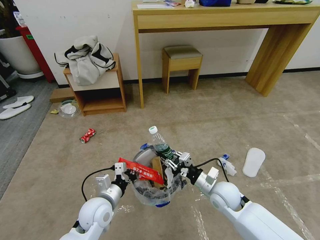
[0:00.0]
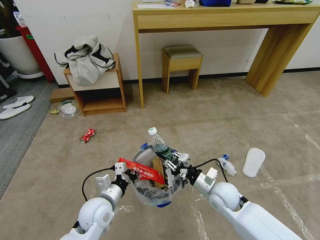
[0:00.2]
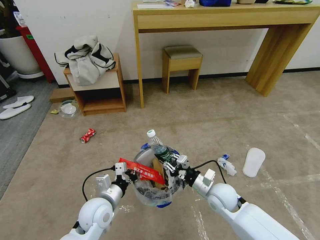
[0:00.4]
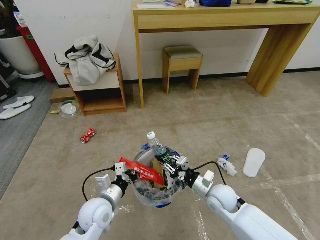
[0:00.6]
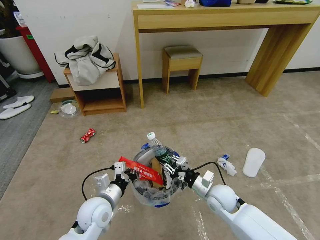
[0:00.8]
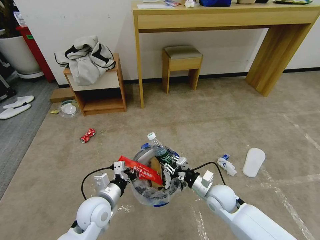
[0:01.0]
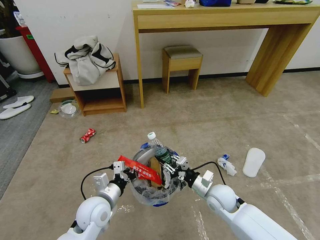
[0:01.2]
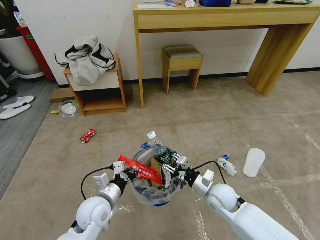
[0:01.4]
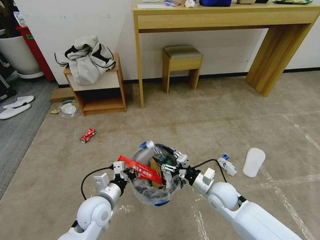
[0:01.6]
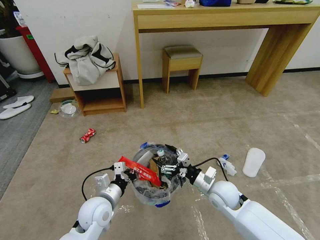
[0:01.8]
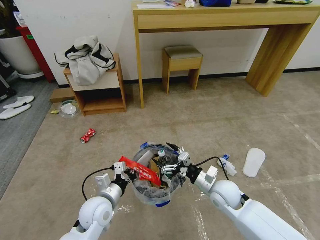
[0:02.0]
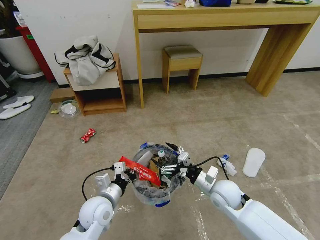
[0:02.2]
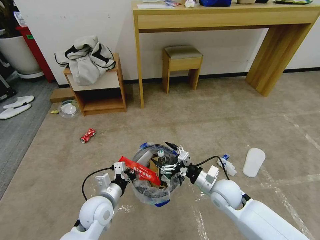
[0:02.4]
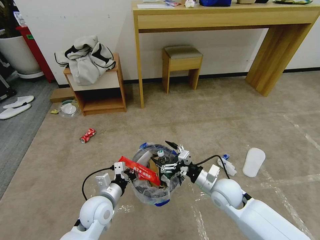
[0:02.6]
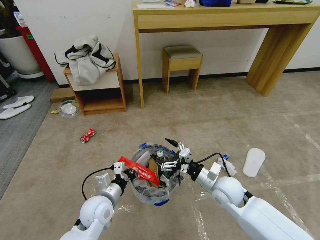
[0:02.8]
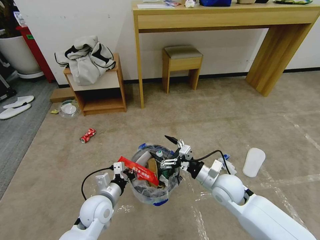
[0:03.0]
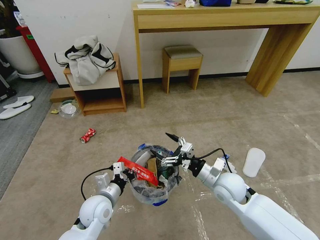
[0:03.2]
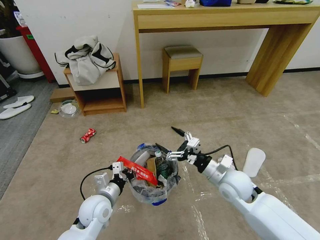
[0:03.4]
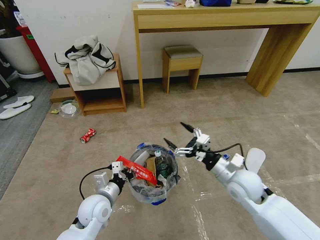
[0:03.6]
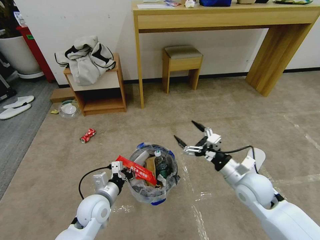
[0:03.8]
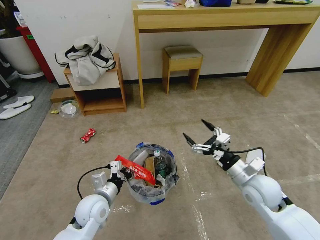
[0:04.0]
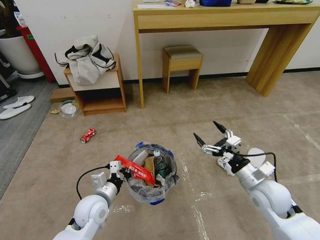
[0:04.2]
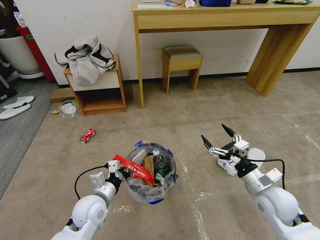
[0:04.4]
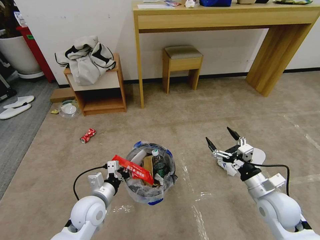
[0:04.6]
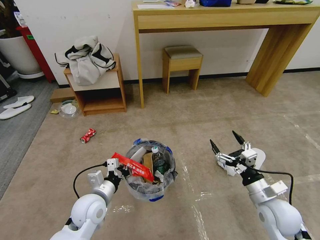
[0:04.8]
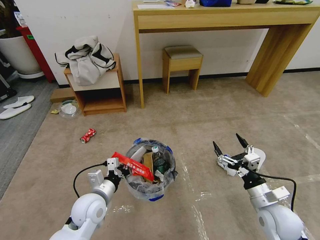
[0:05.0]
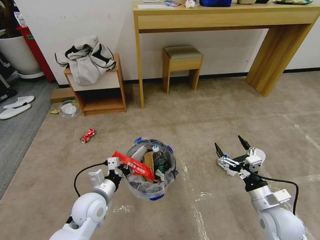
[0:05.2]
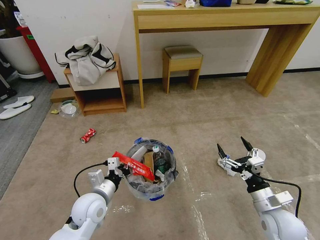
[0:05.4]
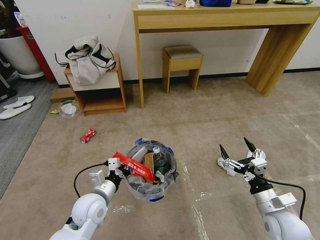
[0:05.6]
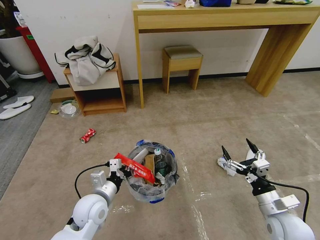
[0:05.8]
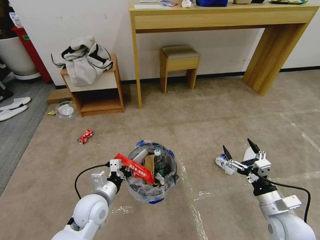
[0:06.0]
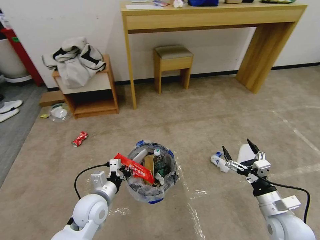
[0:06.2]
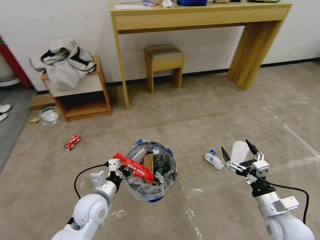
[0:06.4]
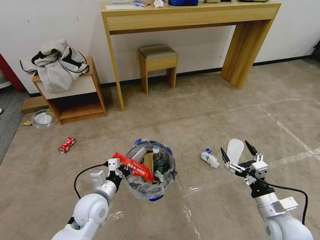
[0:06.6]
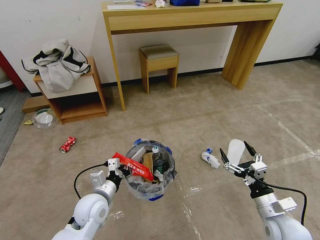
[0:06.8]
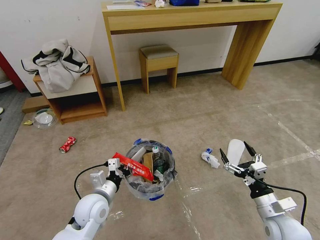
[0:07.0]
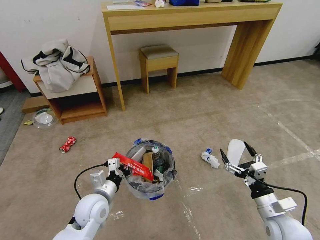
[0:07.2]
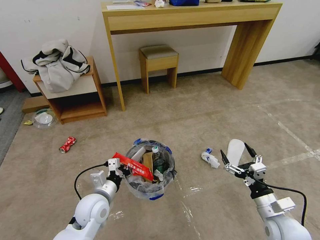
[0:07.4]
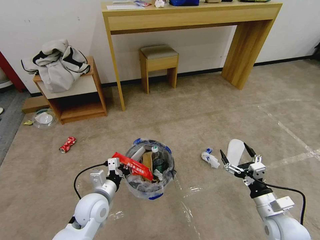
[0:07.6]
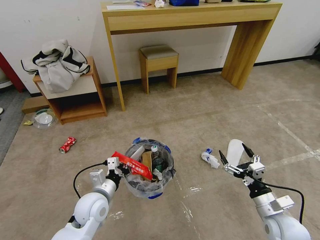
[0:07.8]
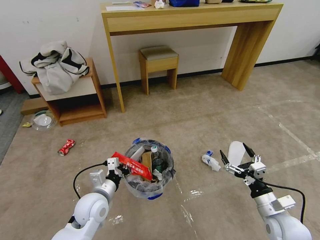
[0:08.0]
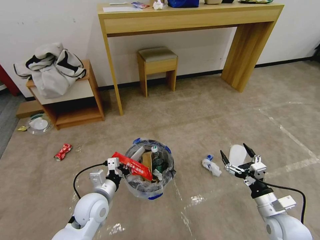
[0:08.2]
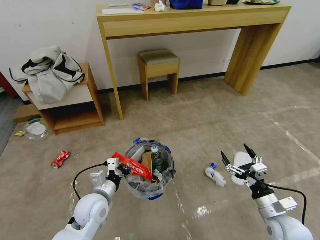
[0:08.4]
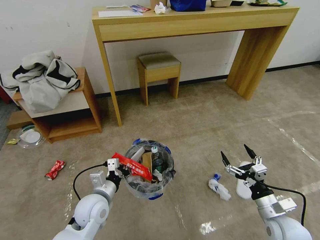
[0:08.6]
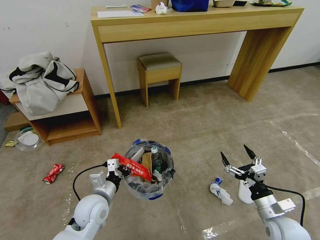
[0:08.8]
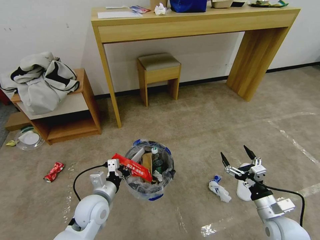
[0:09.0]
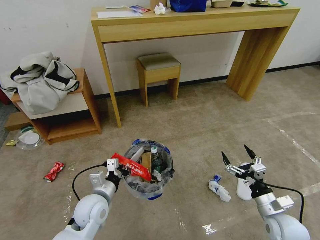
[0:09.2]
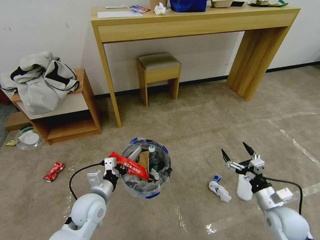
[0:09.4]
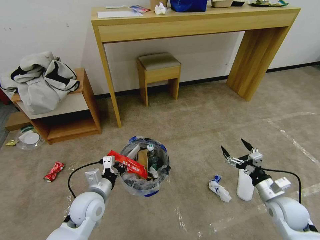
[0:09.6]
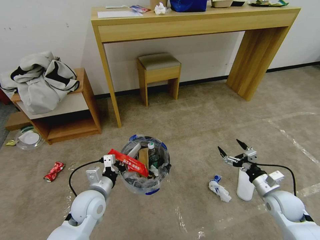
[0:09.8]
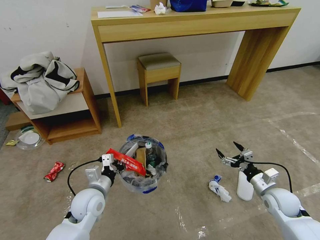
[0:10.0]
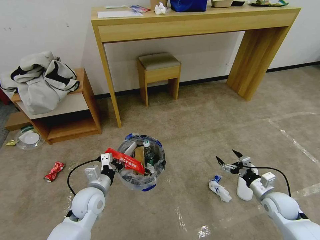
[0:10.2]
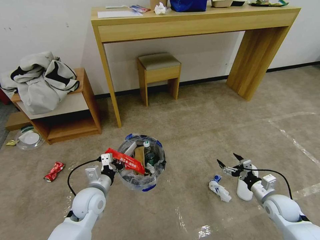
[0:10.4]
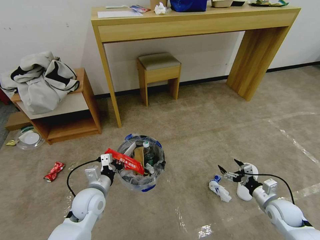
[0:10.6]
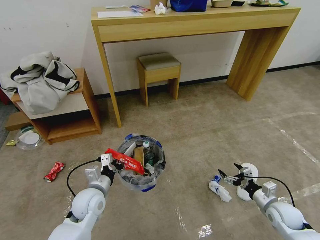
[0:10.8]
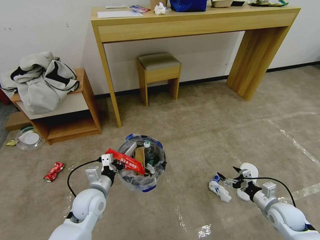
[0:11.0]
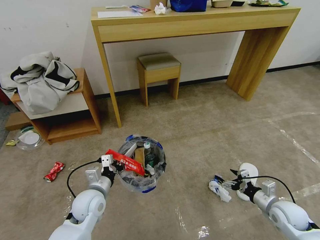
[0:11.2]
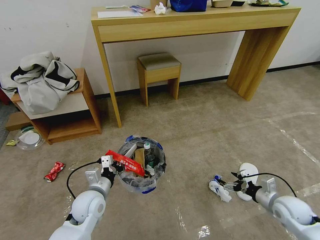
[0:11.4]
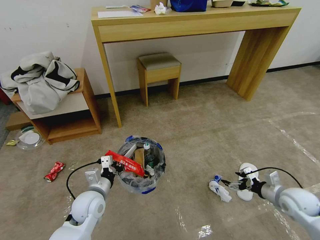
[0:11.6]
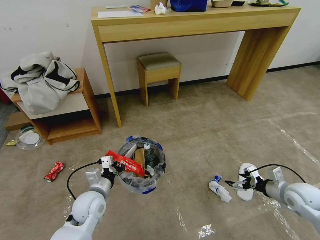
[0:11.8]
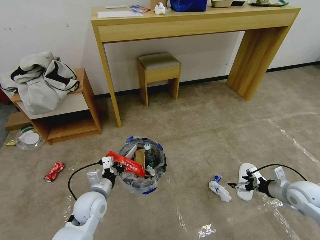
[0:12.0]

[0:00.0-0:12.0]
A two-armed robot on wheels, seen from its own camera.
Task of the whole recording: Pick up the trash bin and place the garbage on the floor into it.
0:00.0 to 0:01.6: The right gripper opens its fingers.
0:01.6 to 0:03.0: The right gripper shifts about 5 cm upward.
0:03.0 to 0:04.4: The right gripper is displaced to the right and backward by roughly 15 cm.
0:04.4 to 0:06.0: The right gripper shifts roughly 5 cm backward.
0:09.0 to 0:10.4: The right gripper heads forward, to the right and downward, covering some 10 cm.
0:10.4 to 0:12.0: The right gripper travels upward by roughly 10 cm.

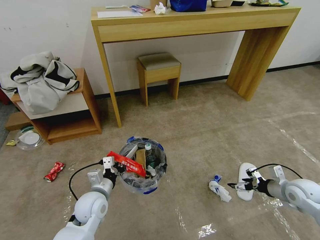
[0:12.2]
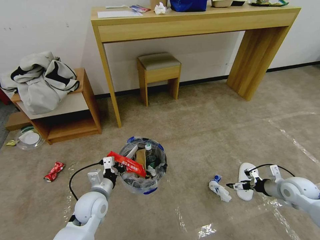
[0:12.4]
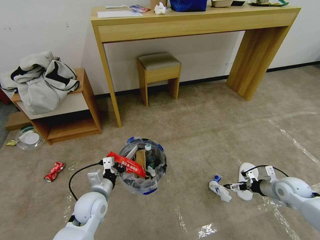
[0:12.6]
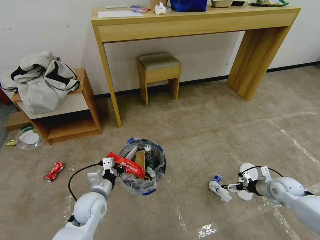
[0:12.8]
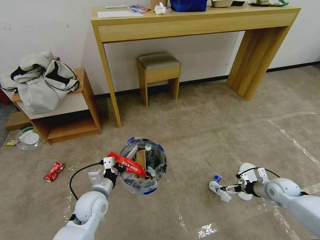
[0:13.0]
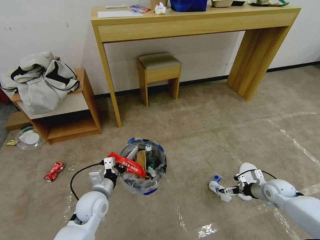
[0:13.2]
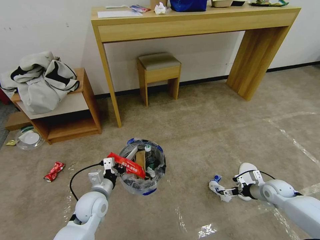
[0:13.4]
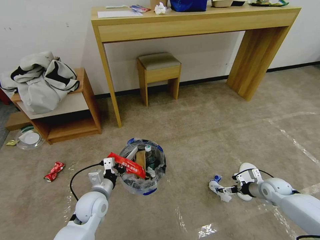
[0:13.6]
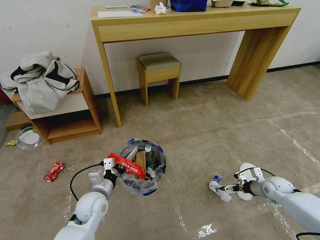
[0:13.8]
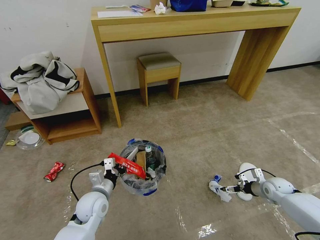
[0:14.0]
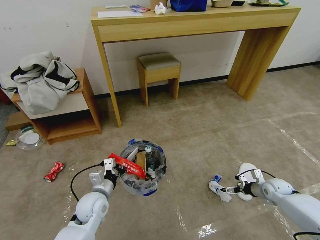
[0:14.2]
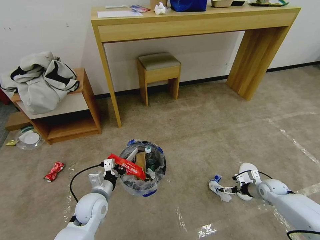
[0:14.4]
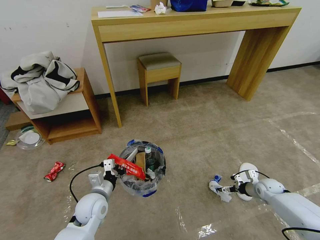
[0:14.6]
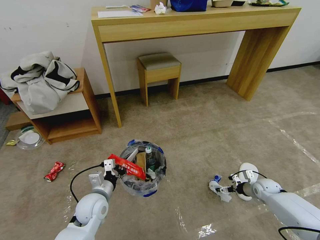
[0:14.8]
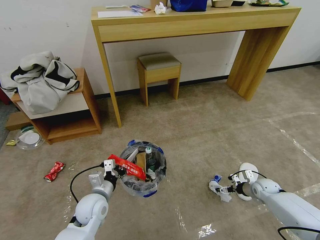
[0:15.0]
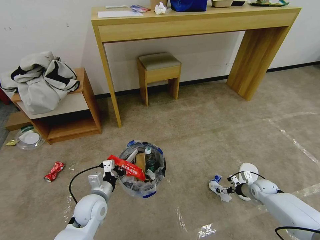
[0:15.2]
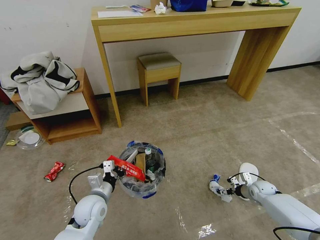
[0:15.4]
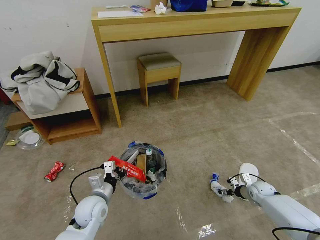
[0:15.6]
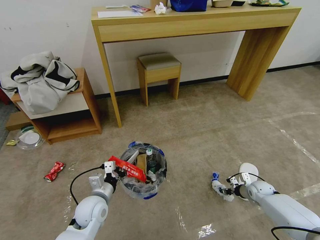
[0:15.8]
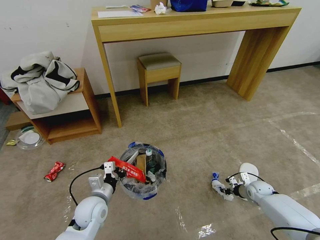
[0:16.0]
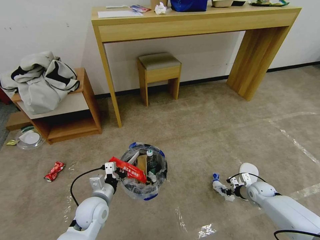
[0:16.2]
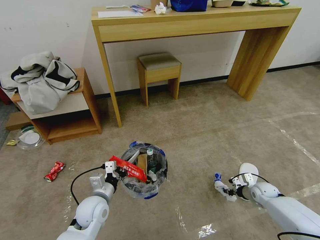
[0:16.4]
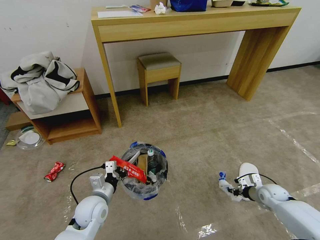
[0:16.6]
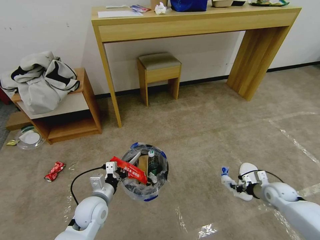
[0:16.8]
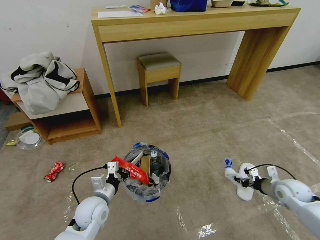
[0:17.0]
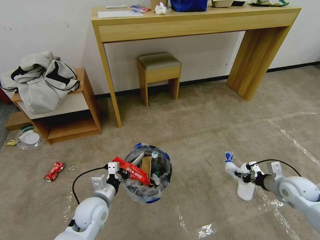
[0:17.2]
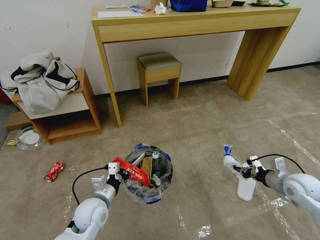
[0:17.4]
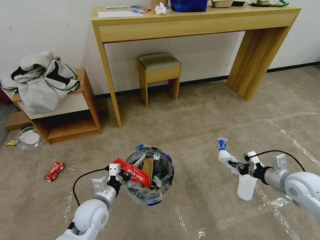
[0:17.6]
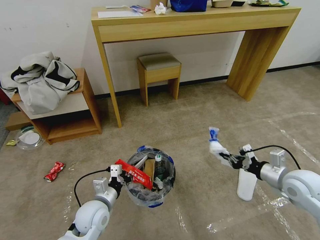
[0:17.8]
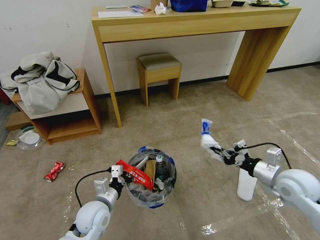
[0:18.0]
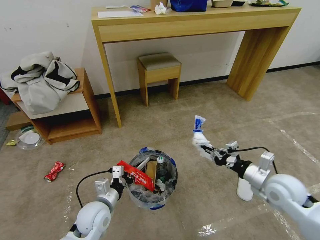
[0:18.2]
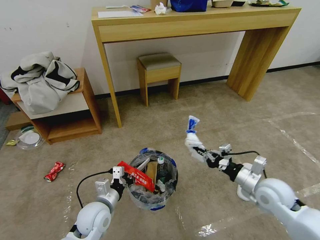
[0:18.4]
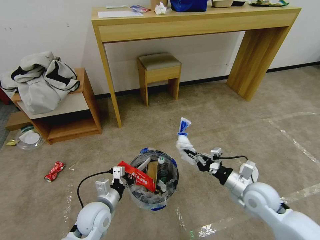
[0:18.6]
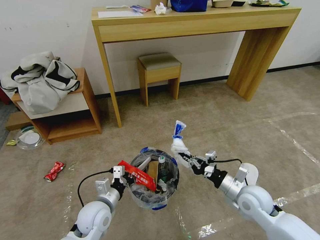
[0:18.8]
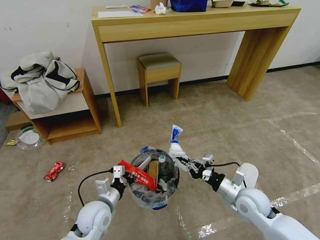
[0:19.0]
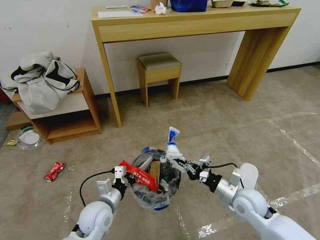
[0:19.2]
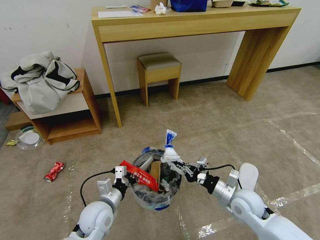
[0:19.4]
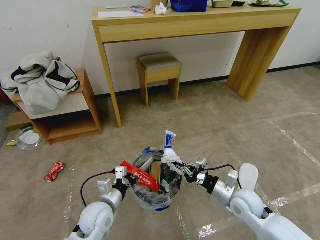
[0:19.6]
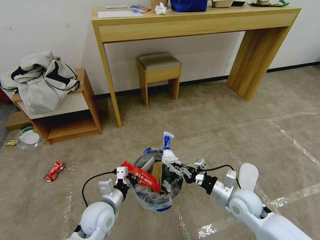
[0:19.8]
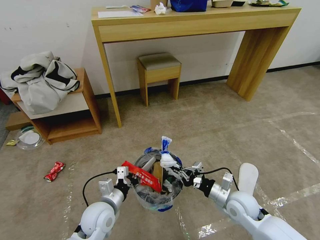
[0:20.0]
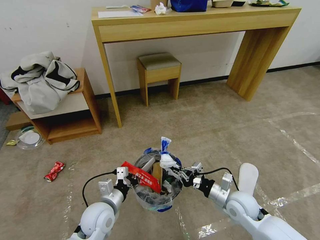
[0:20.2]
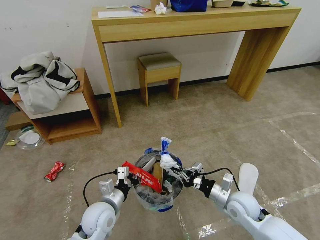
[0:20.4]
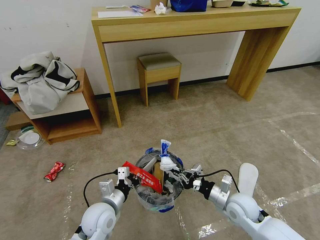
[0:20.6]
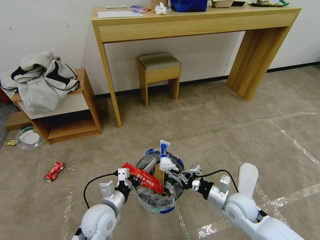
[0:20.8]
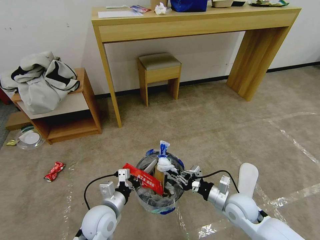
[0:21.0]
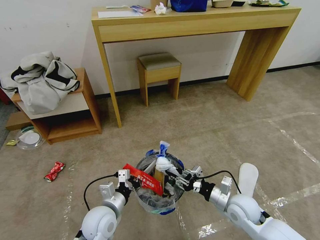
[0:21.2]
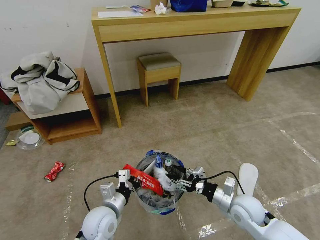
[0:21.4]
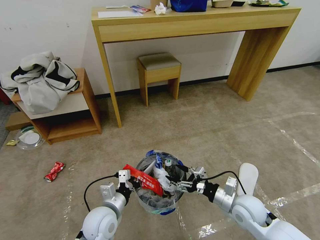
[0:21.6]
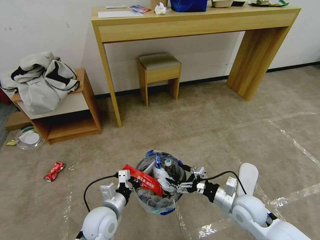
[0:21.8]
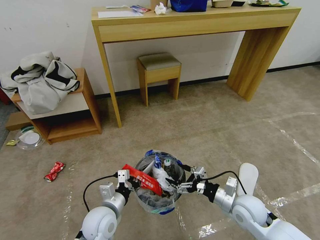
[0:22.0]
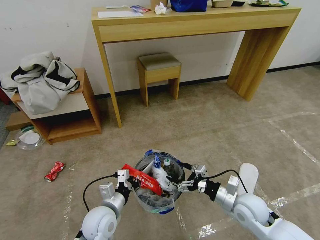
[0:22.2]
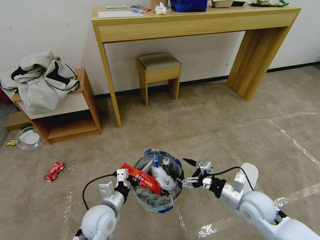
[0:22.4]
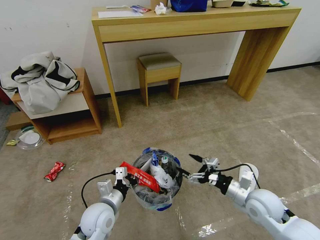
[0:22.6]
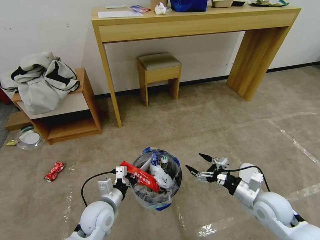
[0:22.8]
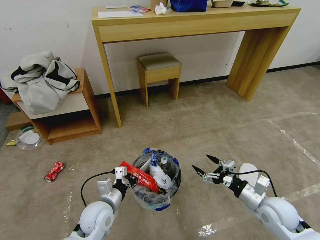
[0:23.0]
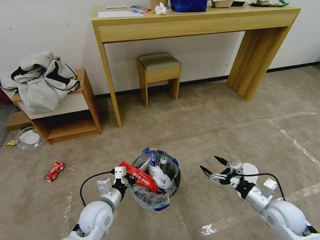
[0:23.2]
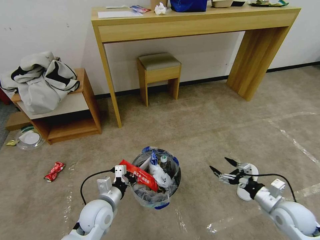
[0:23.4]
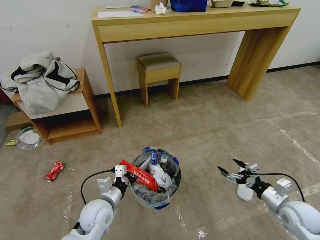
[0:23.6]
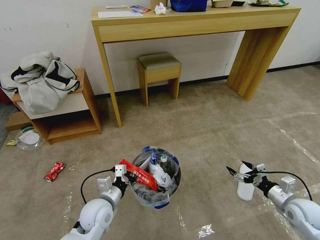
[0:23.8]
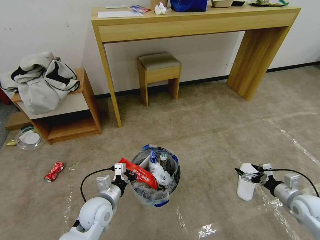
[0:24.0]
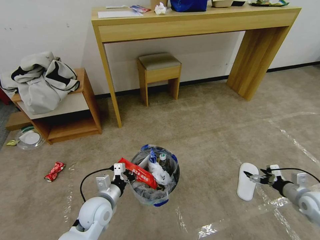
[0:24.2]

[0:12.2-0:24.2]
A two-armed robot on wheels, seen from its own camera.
Task of the whole recording: Pick up the trash bin and place the garbage on the floor into it.
0:12.2 to 0:13.8: The right gripper is displaced downward and forward by roughly 10 cm.
0:13.8 to 0:15.2: The right gripper travels downward by roughly 5 cm.
0:15.2 to 0:16.6: The right gripper closes its fingers.
0:16.6 to 0:18.2: The right gripper is displaced upward and to the left by approximately 25 cm.
0:18.2 to 0:19.8: The right gripper moves to the left and downward, about 10 cm.
0:19.8 to 0:21.2: The right gripper opens up.
0:21.2 to 0:22.6: The right gripper moves about 5 cm, and opens its fingers.
0:22.6 to 0:24.2: The right gripper is displaced to the right by approximately 20 cm.
